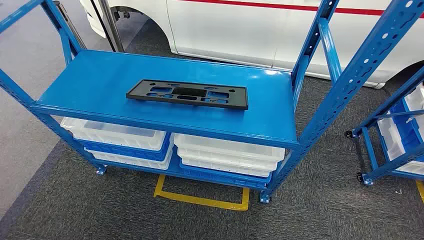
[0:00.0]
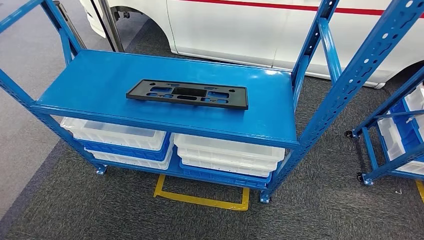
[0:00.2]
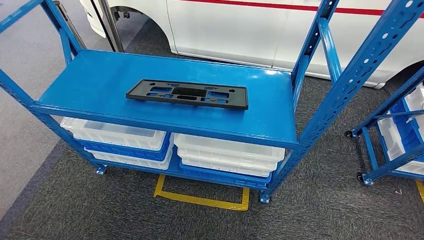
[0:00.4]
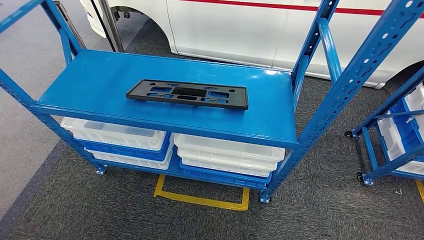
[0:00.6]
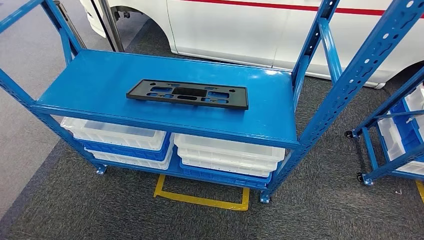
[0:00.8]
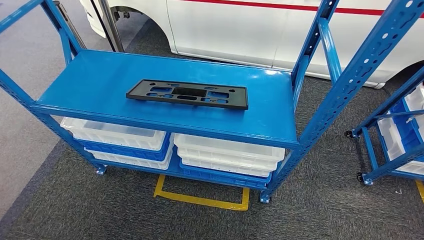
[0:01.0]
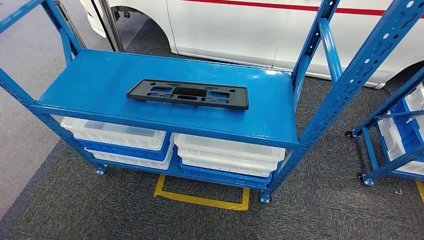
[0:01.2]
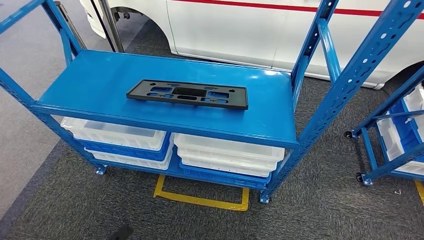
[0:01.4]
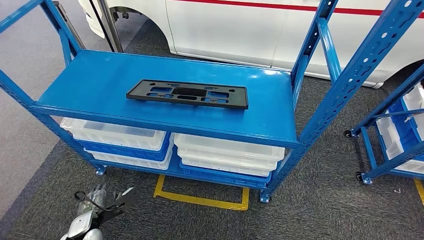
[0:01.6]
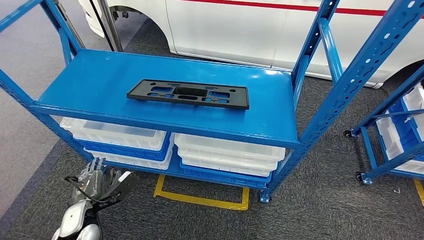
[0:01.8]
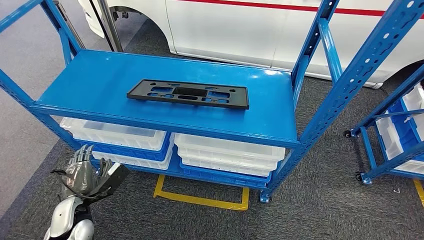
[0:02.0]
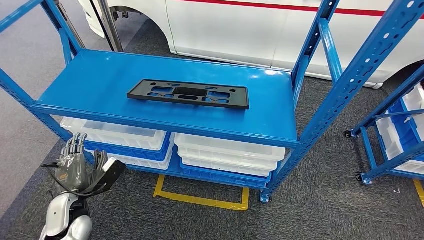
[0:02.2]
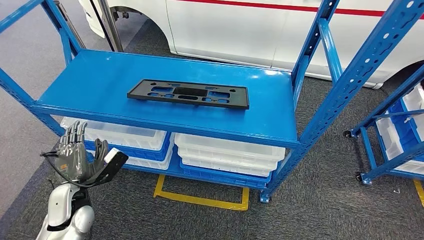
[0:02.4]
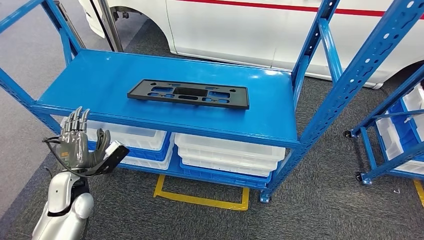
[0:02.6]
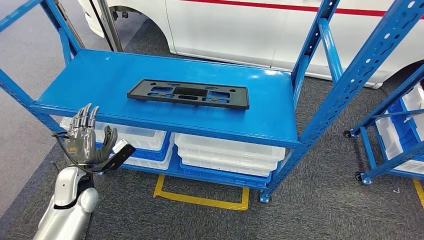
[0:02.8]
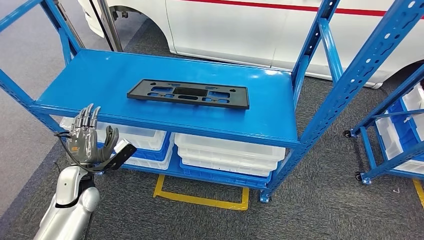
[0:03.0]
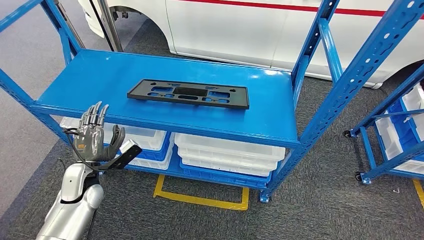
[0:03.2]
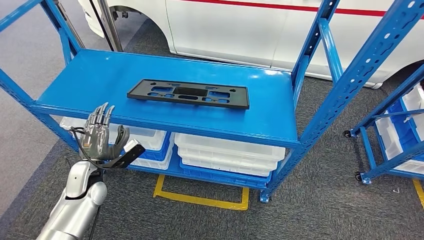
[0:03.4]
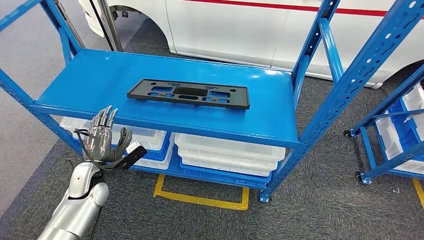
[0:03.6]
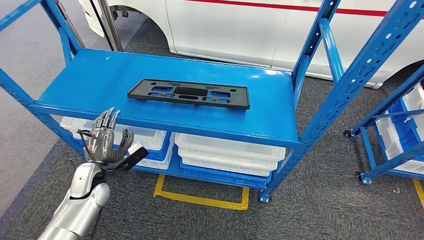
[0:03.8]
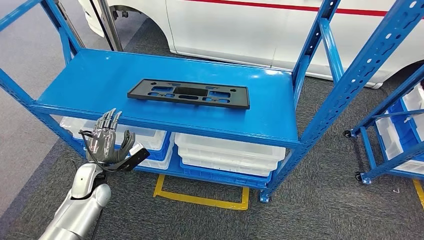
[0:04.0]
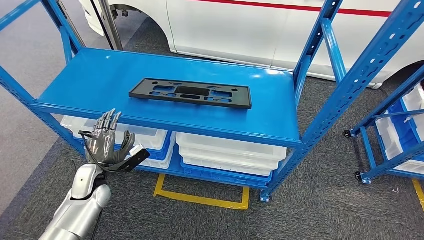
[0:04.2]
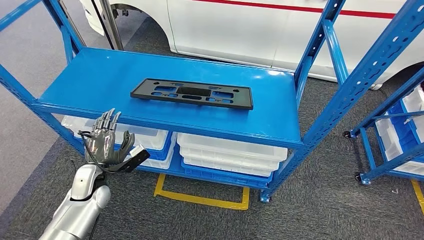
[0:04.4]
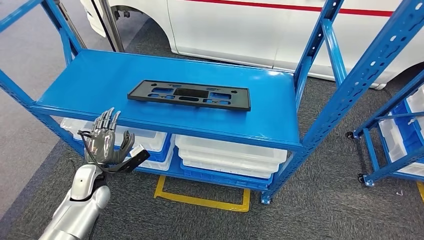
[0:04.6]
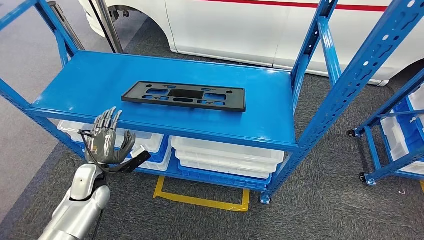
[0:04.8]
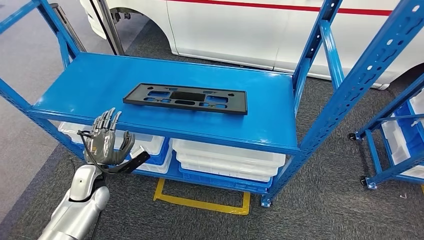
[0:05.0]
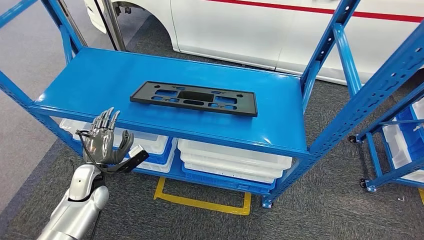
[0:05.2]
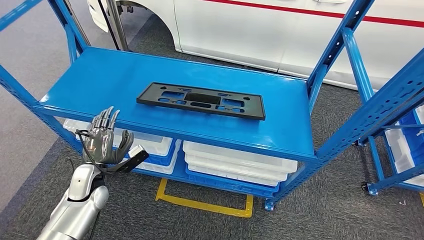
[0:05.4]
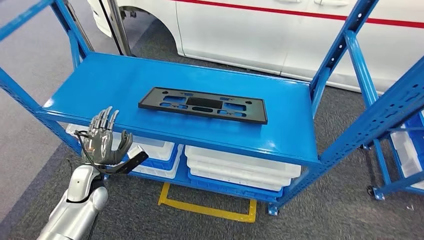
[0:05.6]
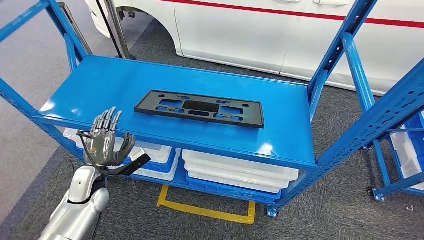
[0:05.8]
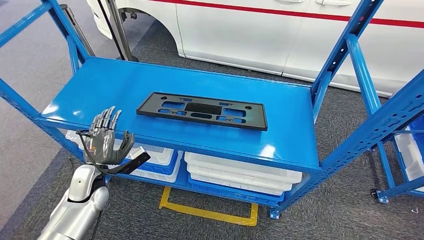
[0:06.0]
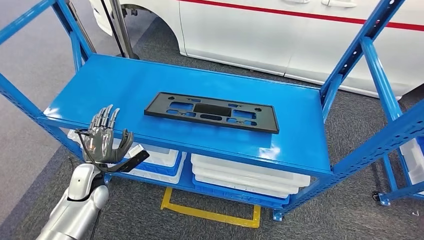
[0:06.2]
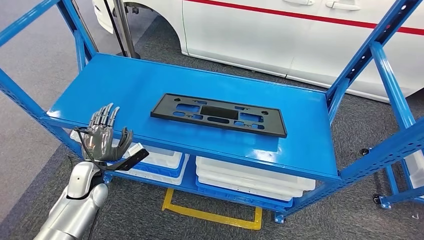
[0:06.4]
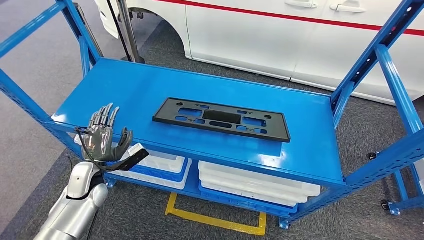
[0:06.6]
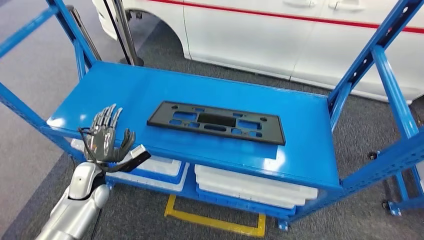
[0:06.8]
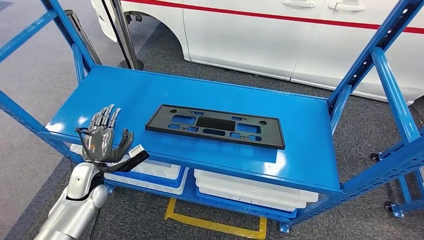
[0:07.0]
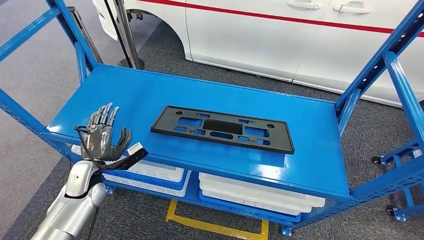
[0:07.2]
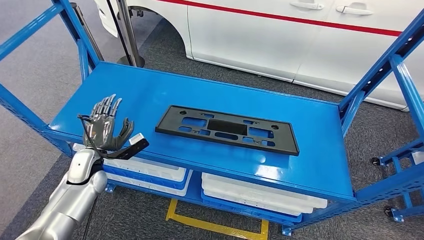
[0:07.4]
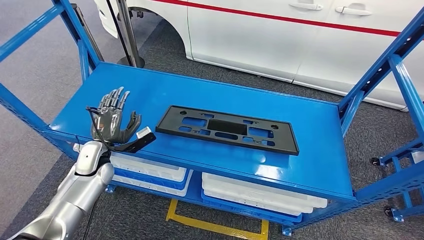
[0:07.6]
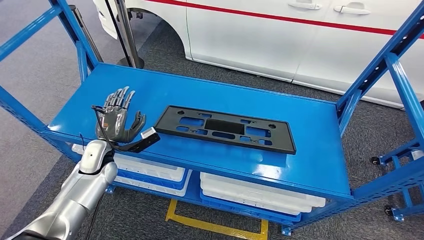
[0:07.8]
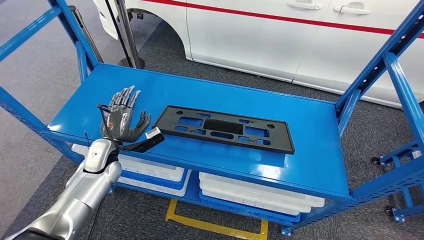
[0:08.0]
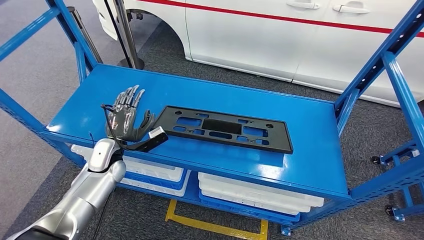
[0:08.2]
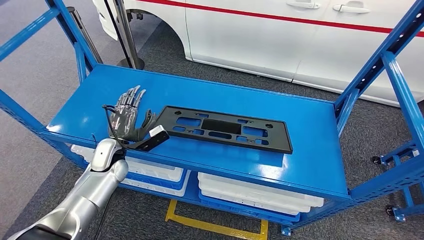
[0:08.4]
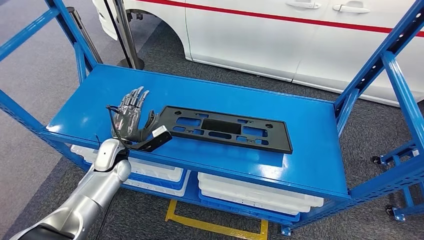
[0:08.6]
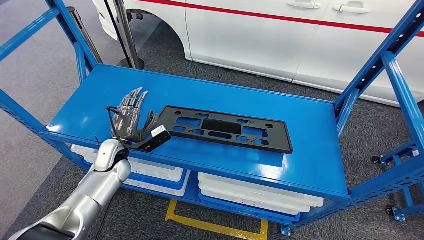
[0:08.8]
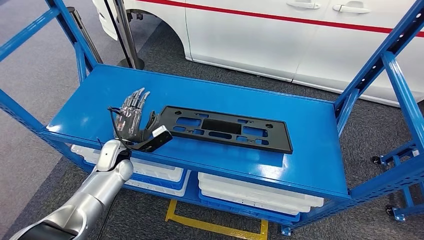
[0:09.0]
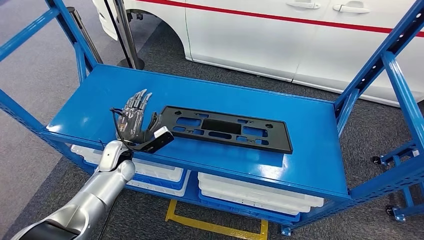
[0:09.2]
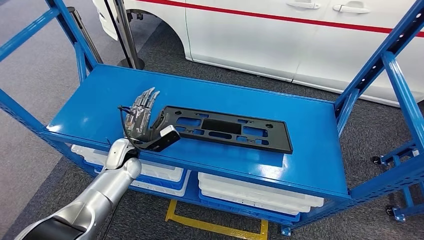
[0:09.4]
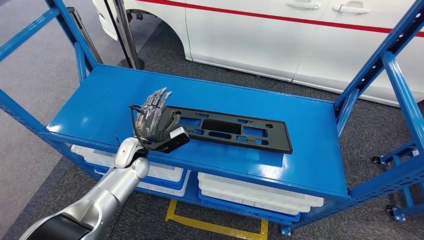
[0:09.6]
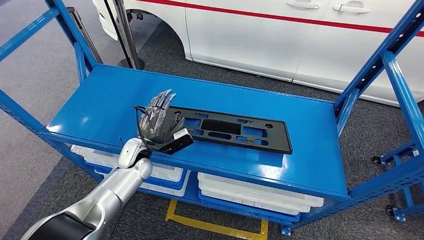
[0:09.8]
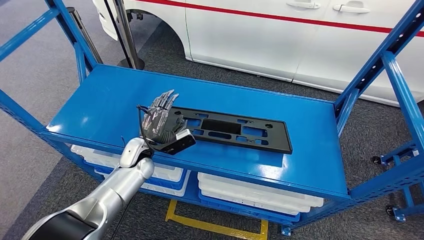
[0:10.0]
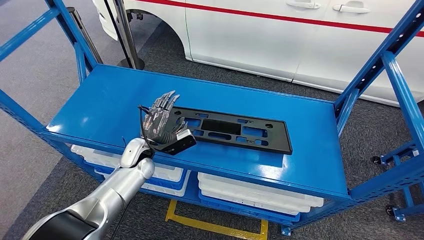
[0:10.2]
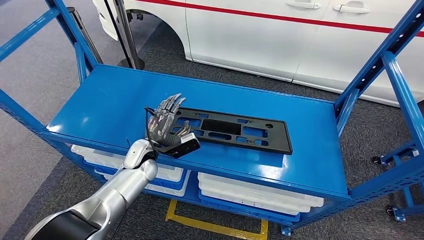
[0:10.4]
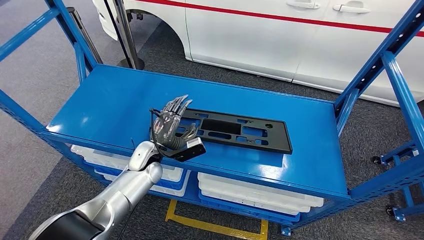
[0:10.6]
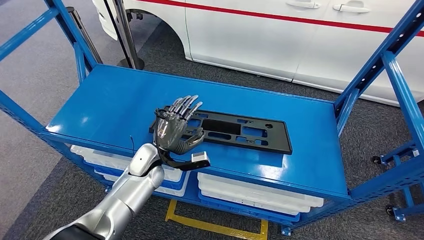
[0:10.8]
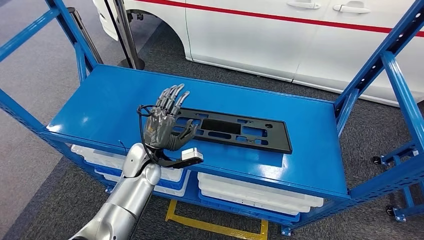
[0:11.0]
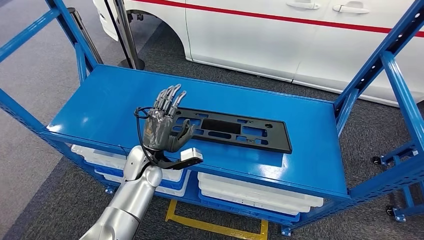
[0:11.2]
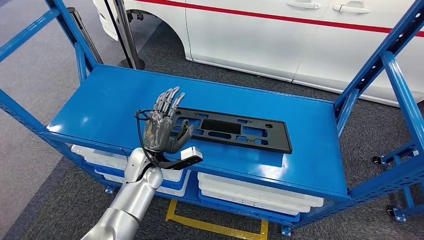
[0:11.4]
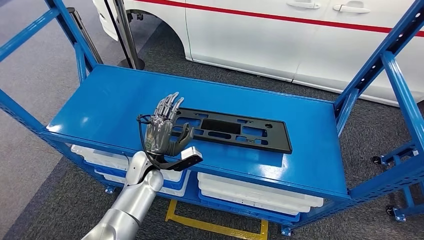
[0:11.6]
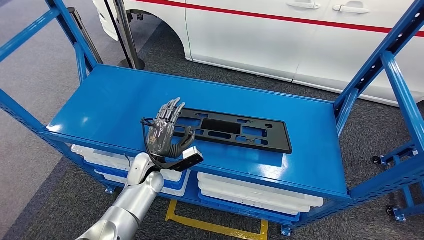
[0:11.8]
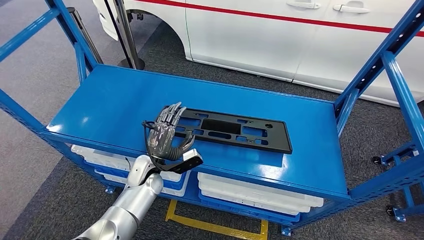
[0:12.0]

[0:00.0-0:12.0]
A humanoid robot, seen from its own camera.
0:01.6 to 0:03.0: The left hand is displaced upward and forward by some 15 cm.
0:03.0 to 0:04.4: The hands move only a little.
0:09.0 to 0:10.4: The left hand is displaced to the right by roughly 5 cm.

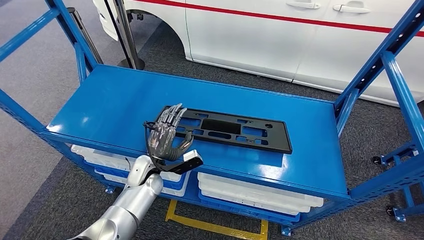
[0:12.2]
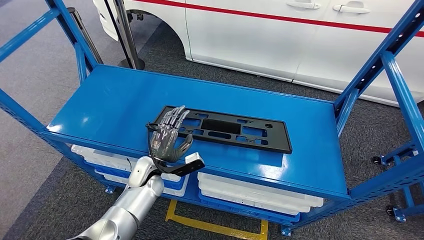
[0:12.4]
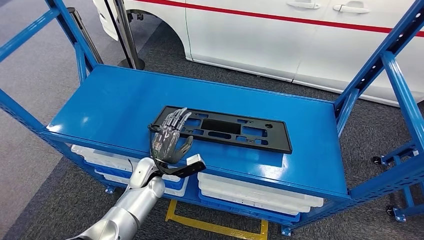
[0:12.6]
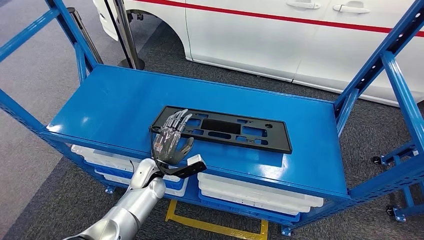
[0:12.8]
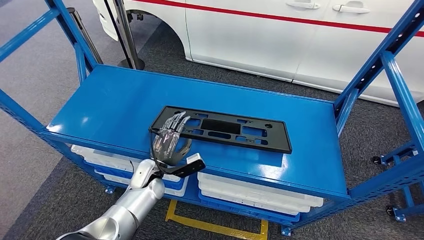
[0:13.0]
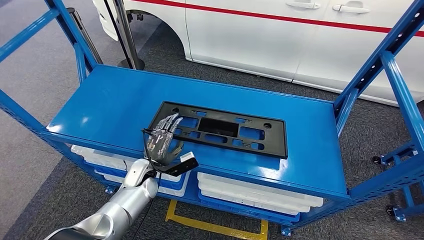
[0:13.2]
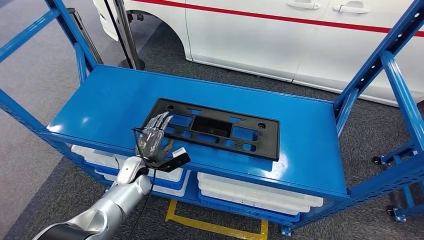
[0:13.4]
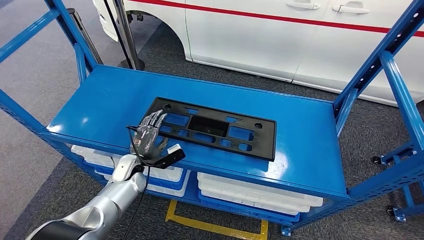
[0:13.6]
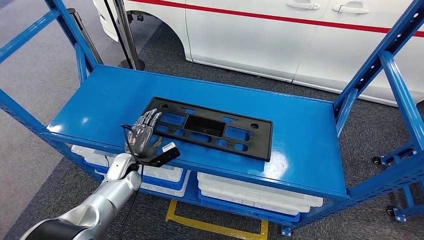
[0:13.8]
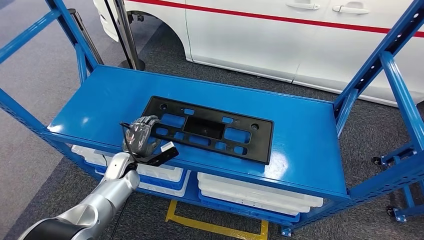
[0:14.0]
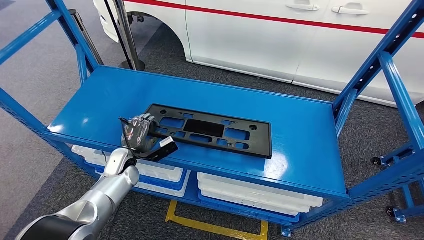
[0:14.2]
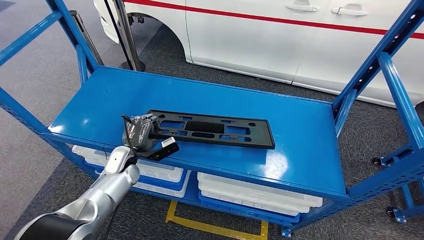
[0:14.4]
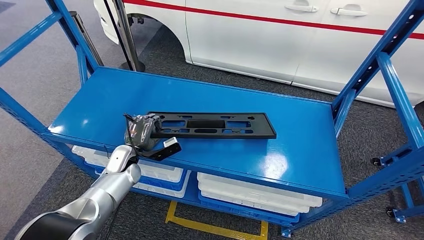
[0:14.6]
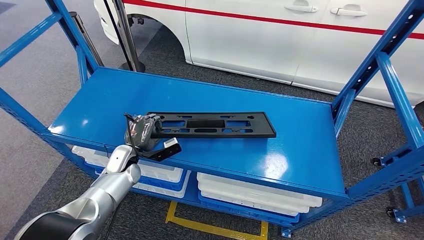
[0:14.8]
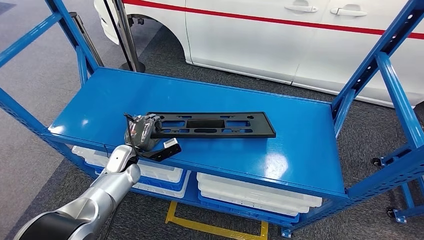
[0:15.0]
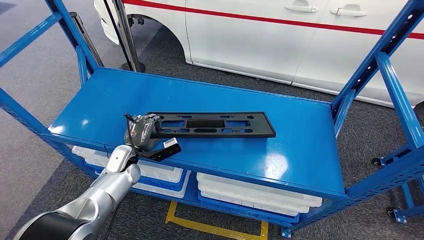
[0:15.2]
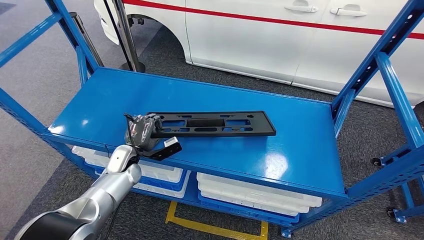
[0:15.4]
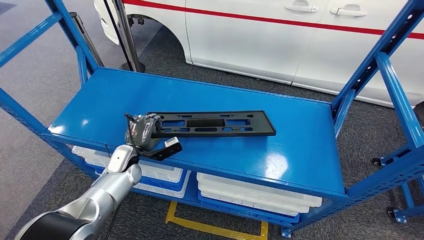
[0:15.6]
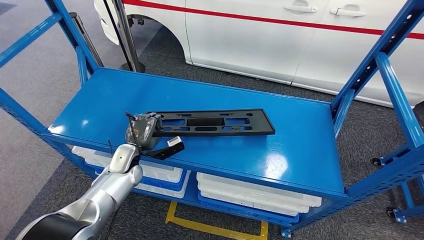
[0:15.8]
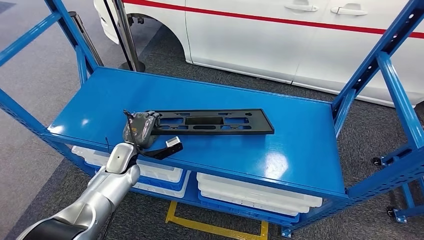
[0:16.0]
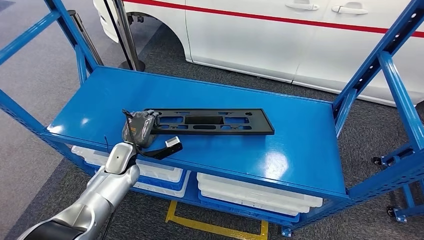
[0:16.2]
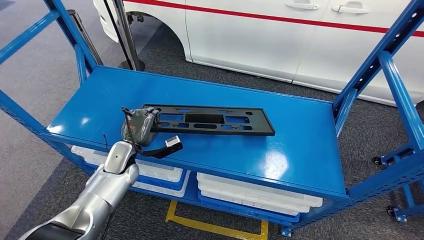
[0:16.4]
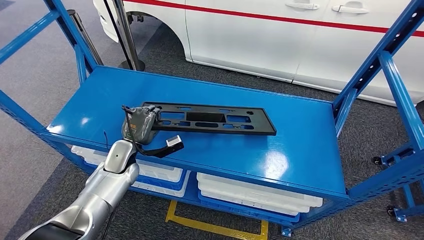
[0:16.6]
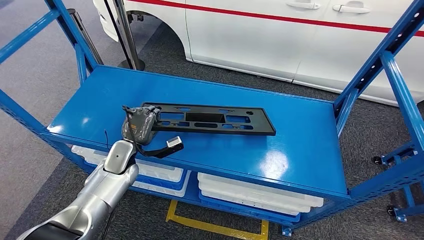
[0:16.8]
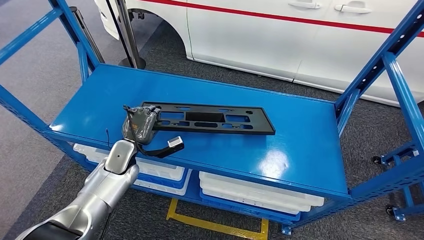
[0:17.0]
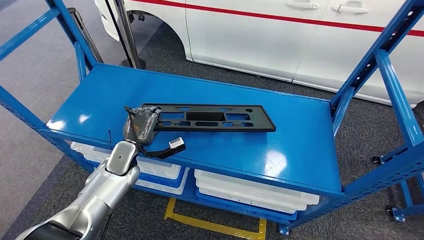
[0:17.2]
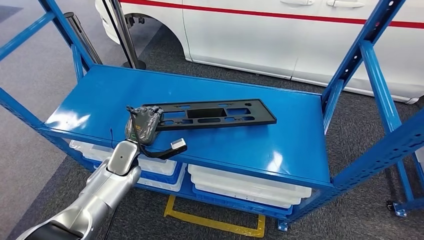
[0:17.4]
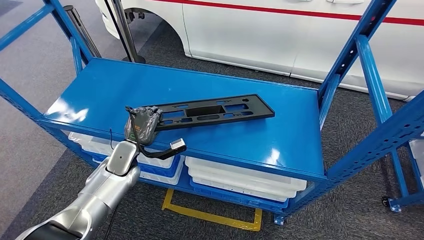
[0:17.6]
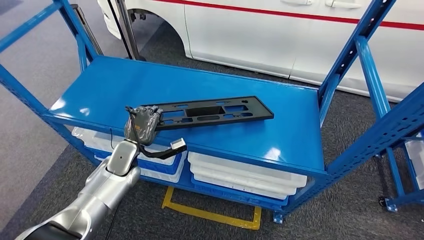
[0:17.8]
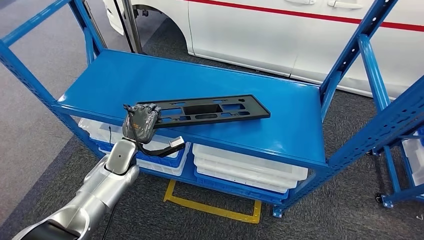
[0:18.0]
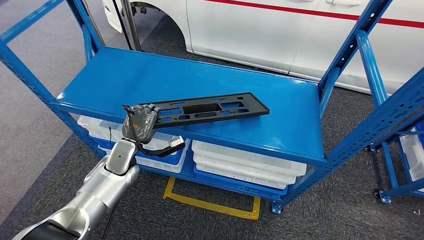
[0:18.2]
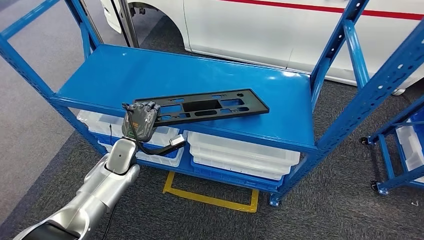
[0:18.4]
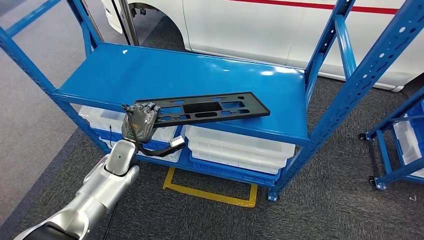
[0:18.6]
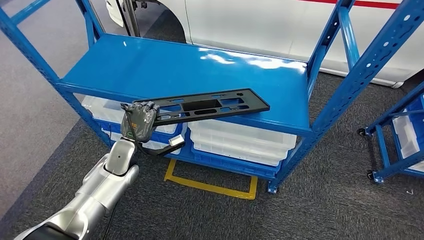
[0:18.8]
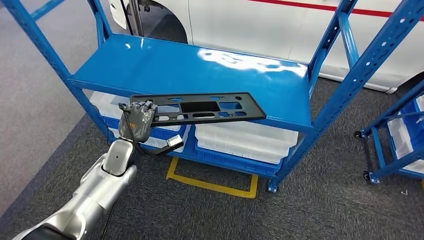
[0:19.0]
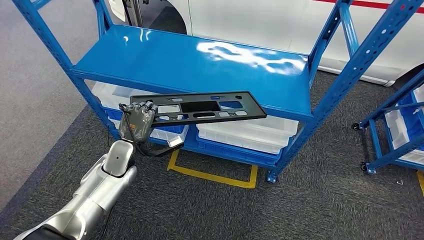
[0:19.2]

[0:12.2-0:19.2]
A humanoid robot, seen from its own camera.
0:12.2 to 0:13.6: The left hand travels to the left by roughly 5 cm.
0:13.6 to 0:16.4: There are only small adjustments of the hands.
